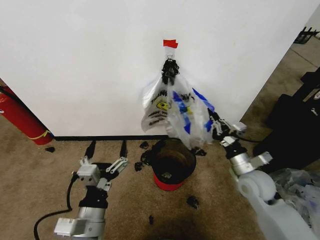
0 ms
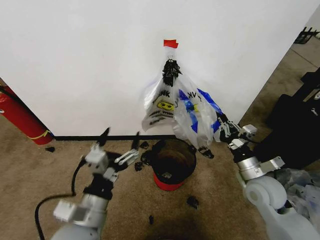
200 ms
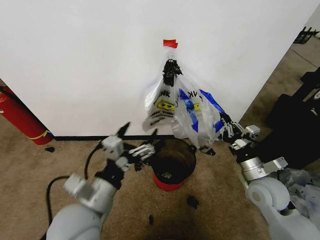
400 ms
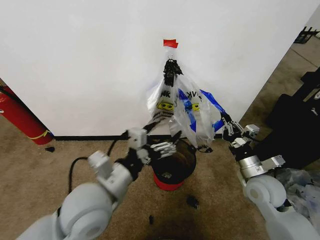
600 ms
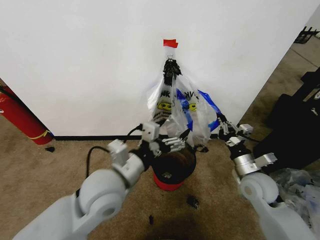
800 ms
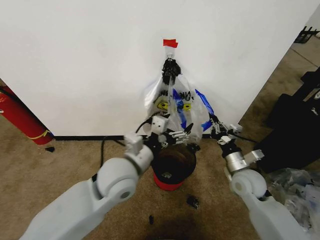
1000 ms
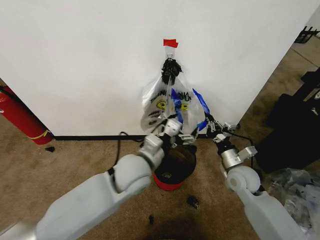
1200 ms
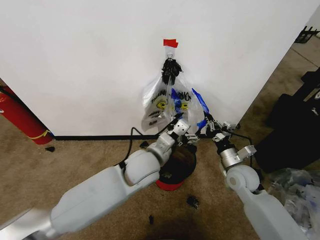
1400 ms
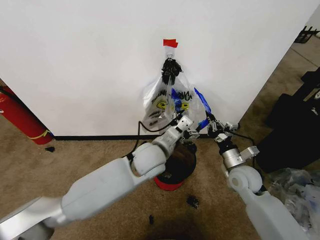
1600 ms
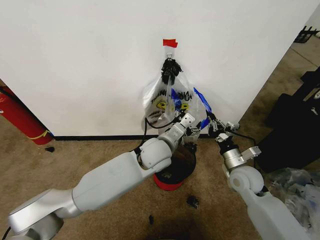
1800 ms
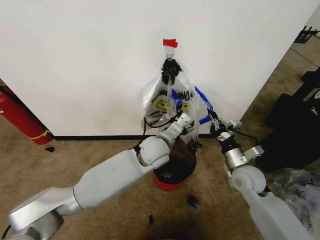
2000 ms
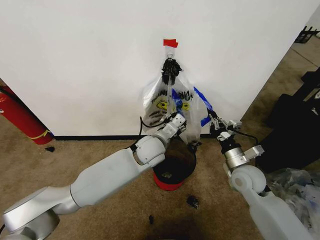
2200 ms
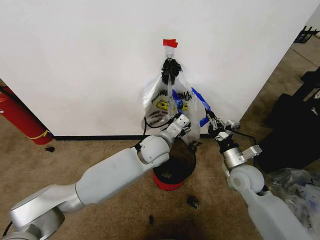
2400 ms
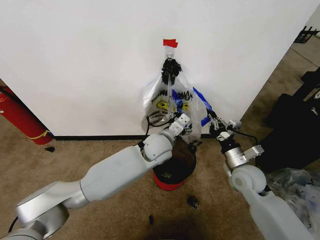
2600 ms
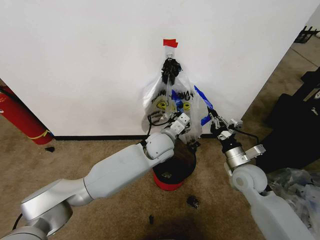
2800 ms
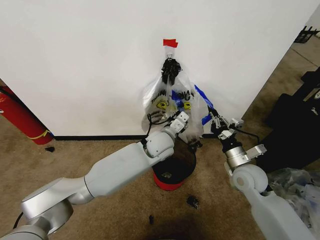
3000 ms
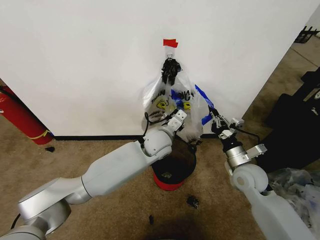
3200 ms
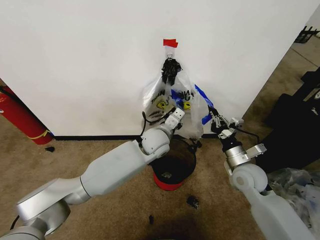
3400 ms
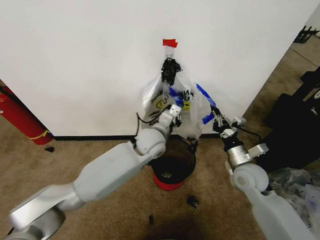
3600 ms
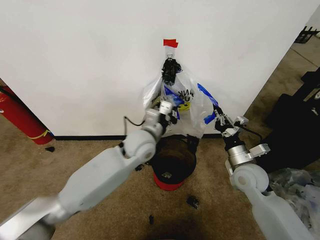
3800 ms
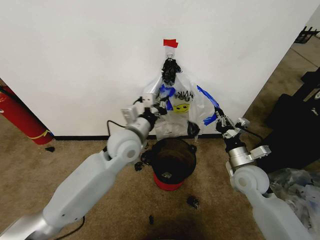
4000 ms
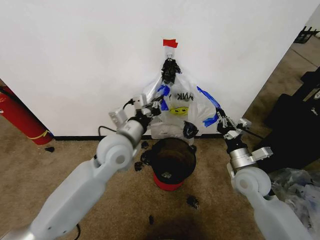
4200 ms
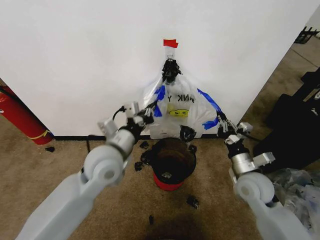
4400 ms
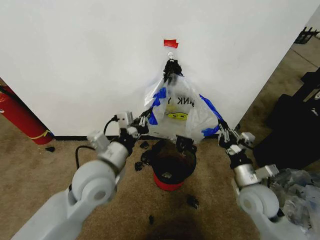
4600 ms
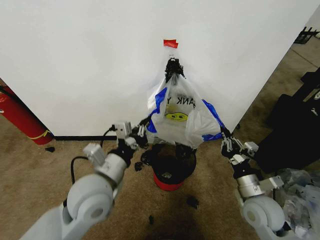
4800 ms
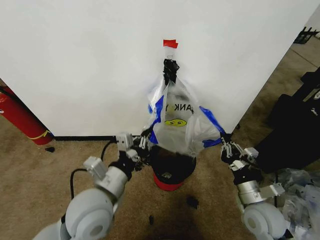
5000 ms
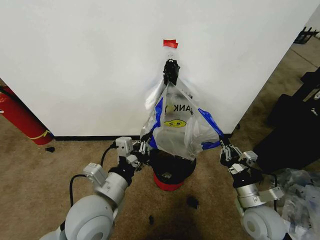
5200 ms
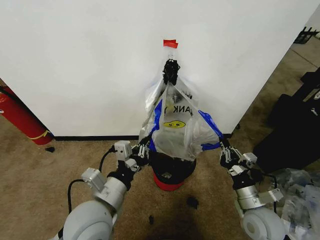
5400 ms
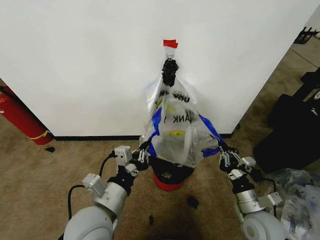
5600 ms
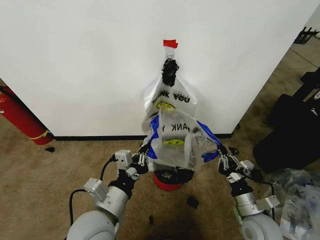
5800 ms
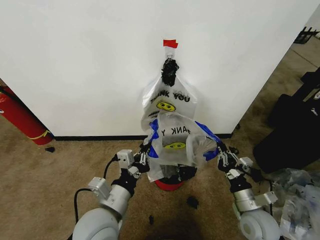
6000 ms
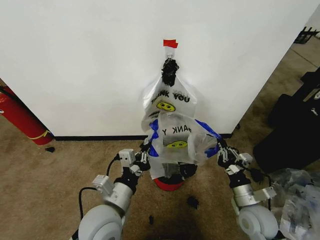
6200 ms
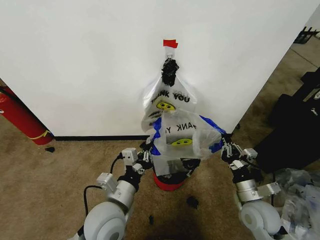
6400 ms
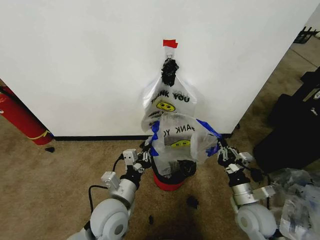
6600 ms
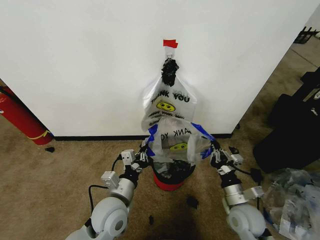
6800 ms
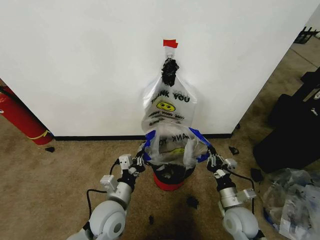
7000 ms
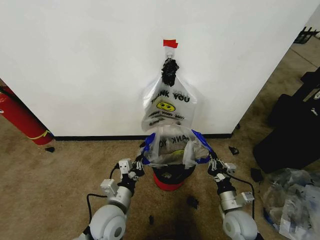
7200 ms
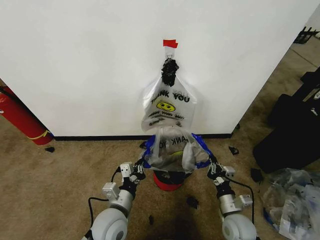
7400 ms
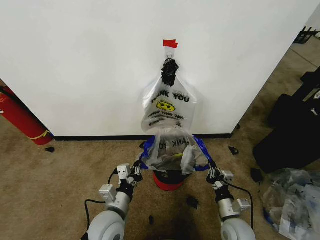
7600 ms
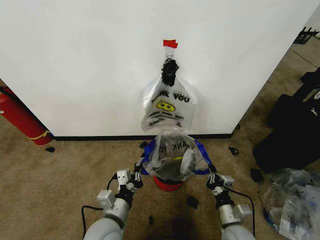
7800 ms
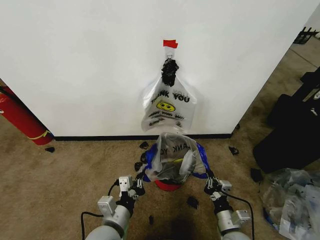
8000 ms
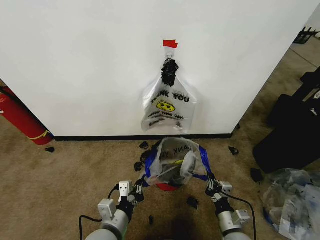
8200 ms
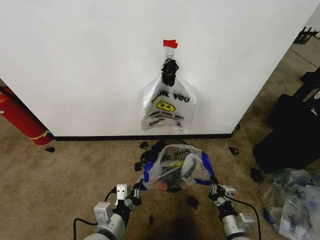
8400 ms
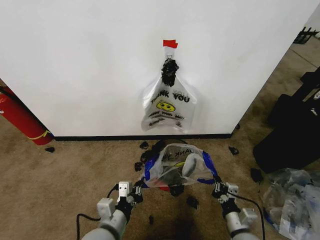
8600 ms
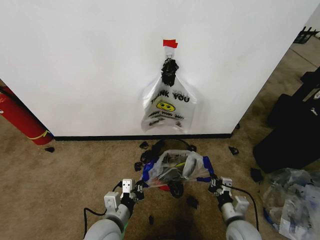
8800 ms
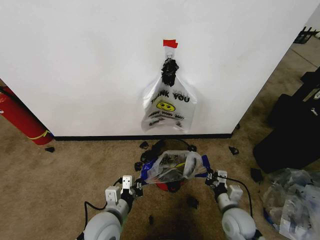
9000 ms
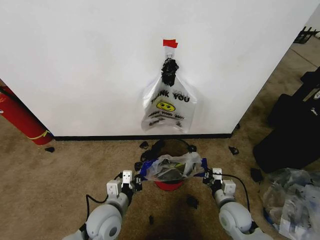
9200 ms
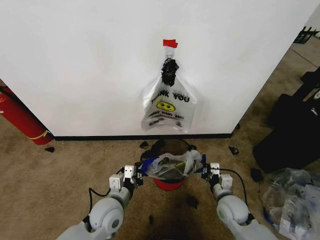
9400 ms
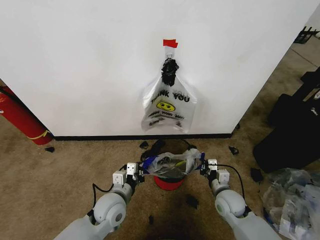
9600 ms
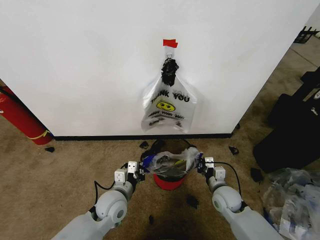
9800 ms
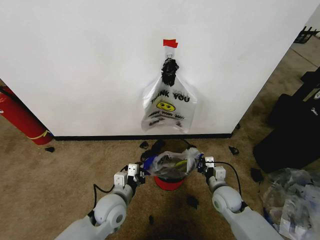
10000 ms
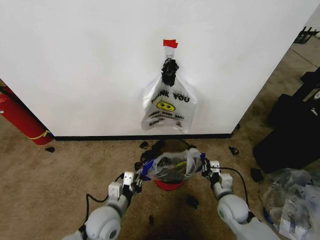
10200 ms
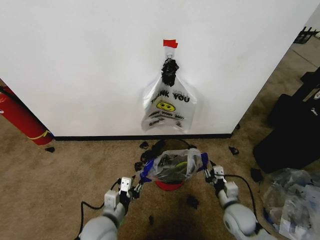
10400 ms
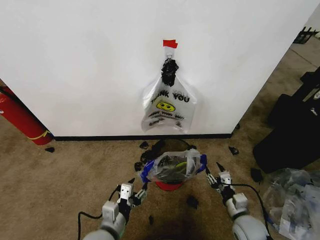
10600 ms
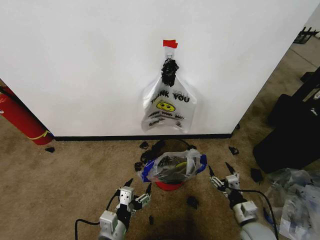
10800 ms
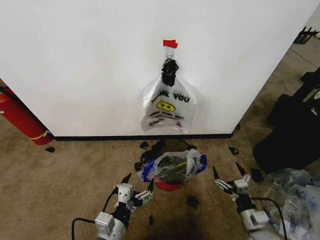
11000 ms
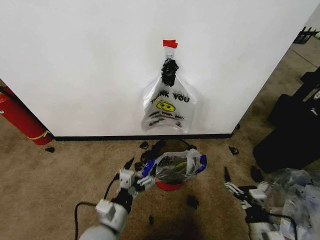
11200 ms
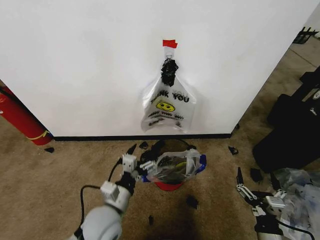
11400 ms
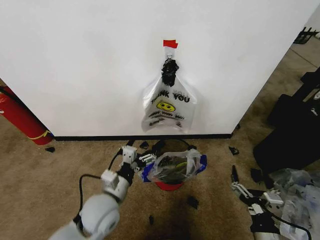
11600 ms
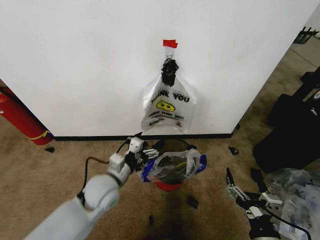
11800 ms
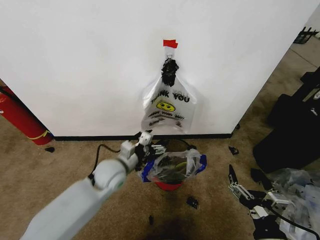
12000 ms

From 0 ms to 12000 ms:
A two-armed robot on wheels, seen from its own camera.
Task of the whole recording: Pick up the garbage bag from the wall and place it over the trash bin.
From 0 ms to 1600 ms: The left gripper shifts some 25 cm forward and to the right.
From 1600 ms to 3000 ms: The left gripper is displaced forward by about 10 cm, and closes.
From 3000 ms to 4400 ms: The left gripper goes approximately 20 cm to the left, backward and upward, and closes up.
From 4400 ms to 6000 ms: The two grippers go approximately 15 cm backward and downward.
From 6000 ms to 7600 ms: Both grippers travel together downward, approximately 10 cm.
From 9000 ms to 10400 ms: The left gripper moves approximately 5 cm forward and comes back, and opens; the right gripper goes forward and returns, approximately 10 cm each way, and opens its fingers.
From 10400 ms to 12000 ms: The left gripper travels forward and upward by some 15 cm, and opens up; the right gripper heads backward and upward, covering about 20 cm, and opens up.

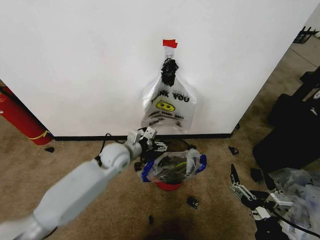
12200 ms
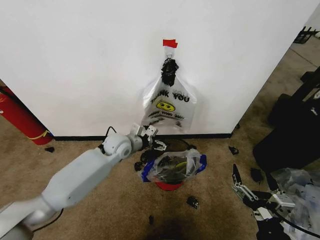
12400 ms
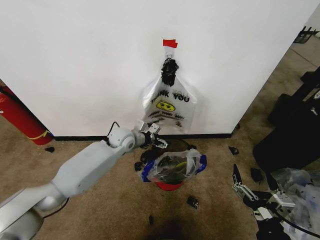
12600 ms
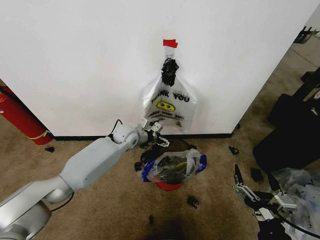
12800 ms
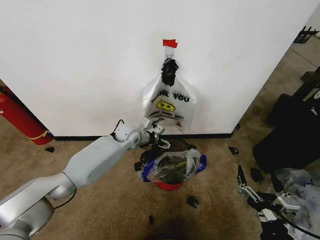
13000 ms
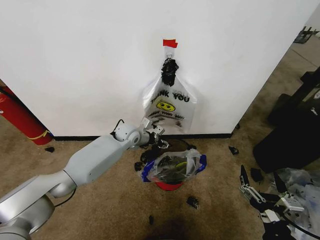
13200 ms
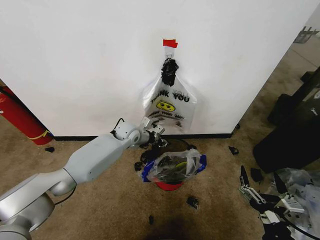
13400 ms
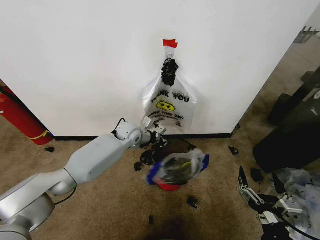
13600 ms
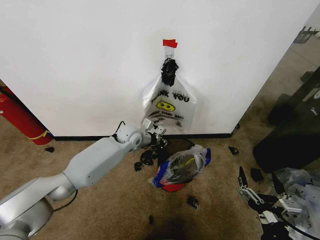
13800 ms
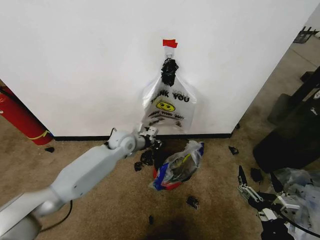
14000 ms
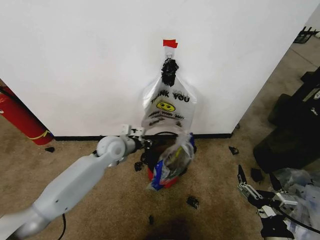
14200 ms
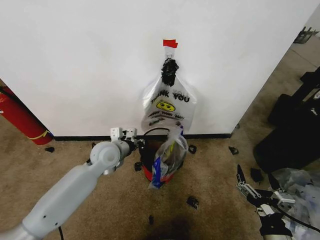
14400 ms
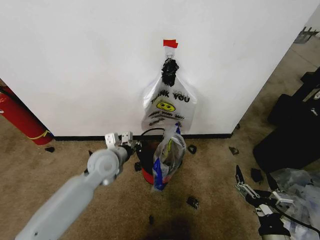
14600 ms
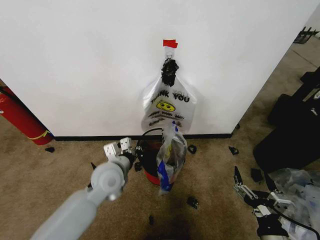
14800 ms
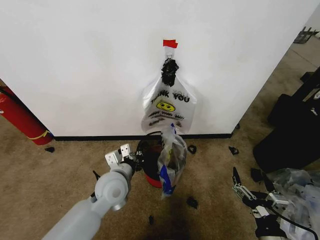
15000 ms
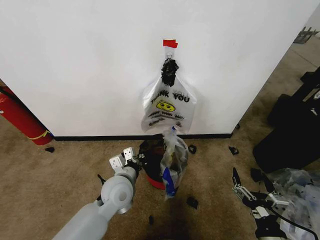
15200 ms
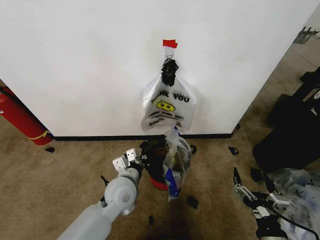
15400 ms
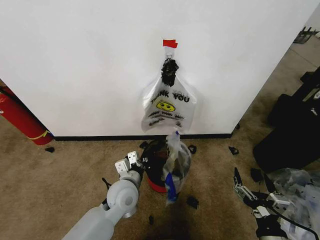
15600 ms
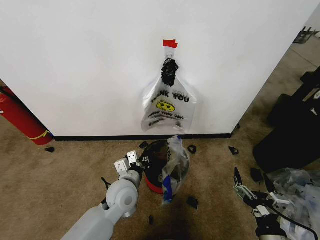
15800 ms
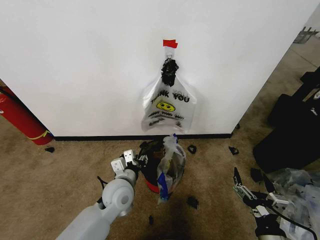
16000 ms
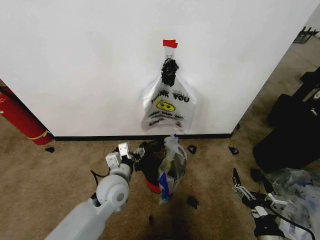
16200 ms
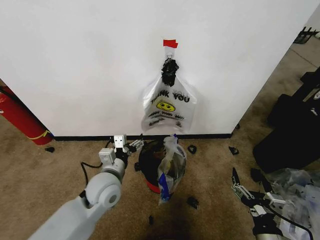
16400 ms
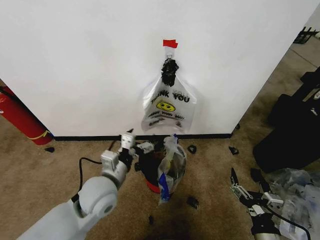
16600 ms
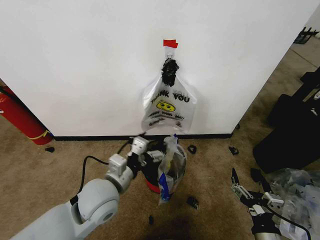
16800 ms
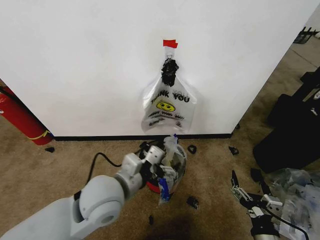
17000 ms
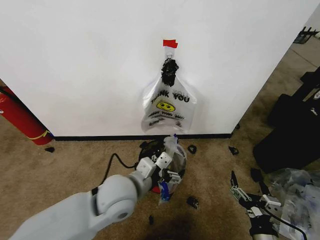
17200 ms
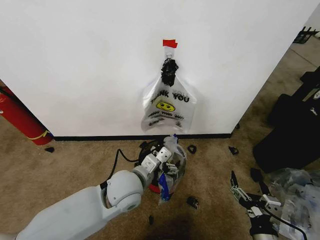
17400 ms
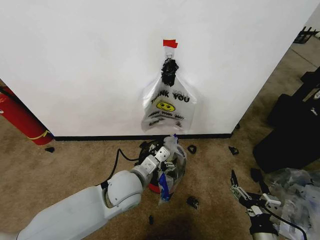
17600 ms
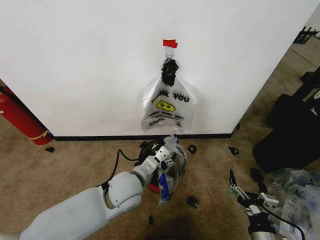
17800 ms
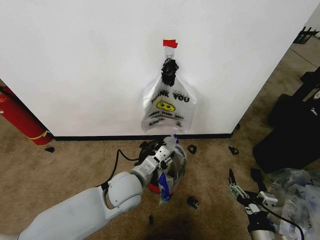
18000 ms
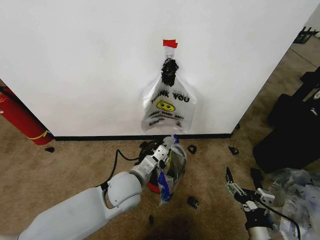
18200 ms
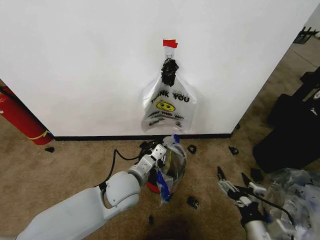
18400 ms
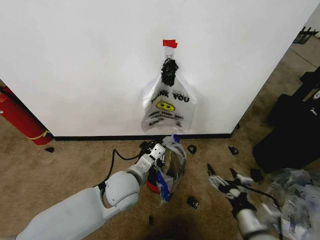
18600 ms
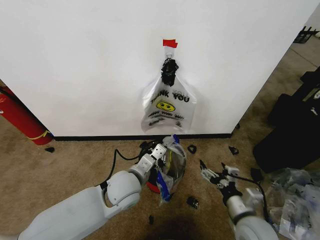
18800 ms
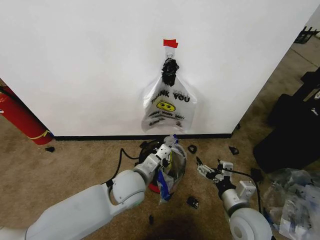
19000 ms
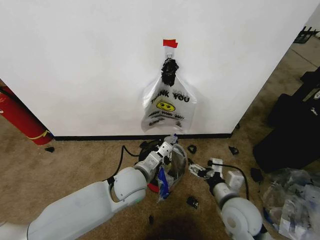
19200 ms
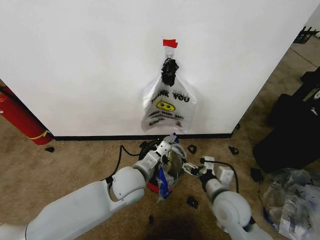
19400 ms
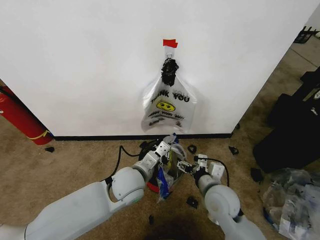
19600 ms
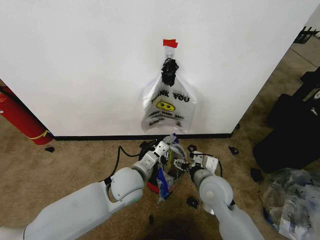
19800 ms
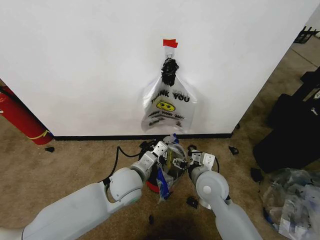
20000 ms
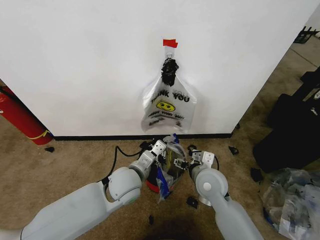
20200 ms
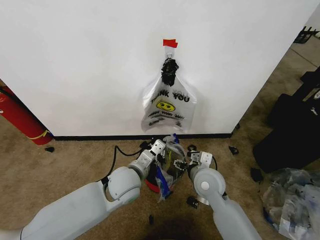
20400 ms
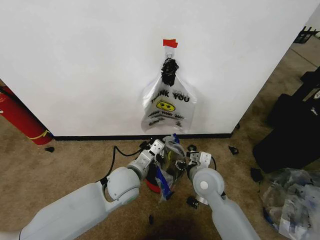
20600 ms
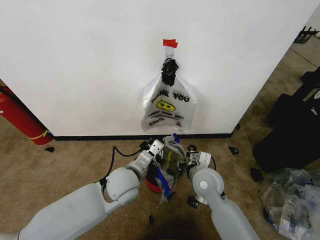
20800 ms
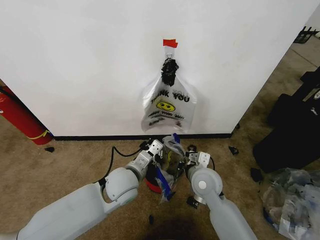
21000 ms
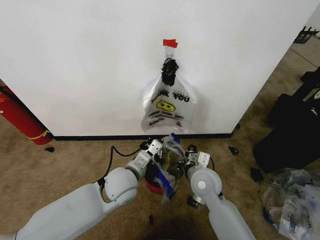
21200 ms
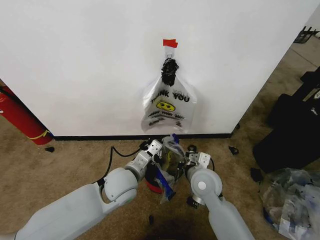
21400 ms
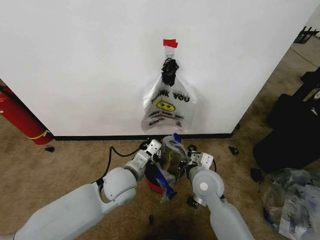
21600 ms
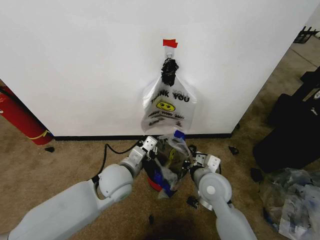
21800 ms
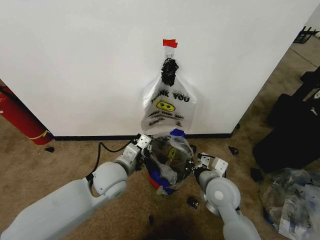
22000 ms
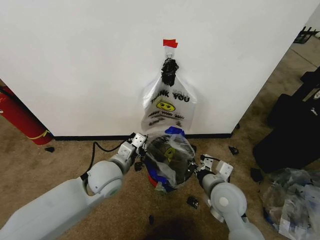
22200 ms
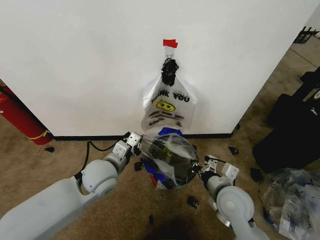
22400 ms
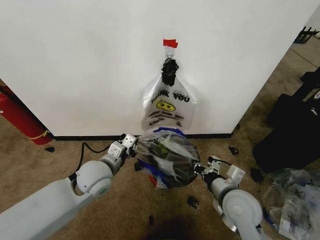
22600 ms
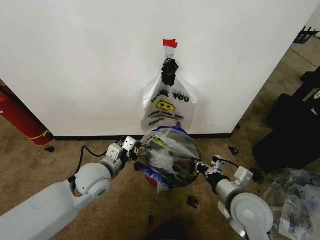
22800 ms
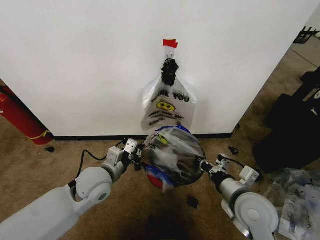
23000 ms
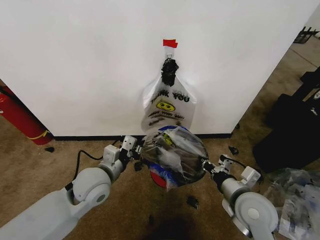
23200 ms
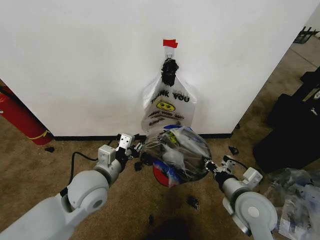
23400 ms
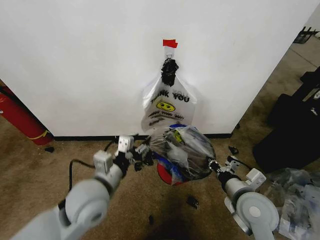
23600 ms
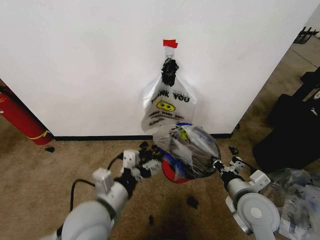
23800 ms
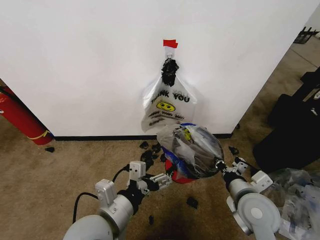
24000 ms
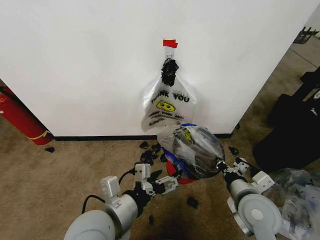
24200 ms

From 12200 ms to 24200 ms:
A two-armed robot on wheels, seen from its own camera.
Task of the whole recording: Pick up the garbage bag from the wall and place it over the trash bin.
From 12200 ms to 13800 ms: The left gripper goes about 10 cm forward, and closes up.
From 13800 ms to 15200 ms: The left gripper shifts about 20 cm backward.
From 15200 ms to 16600 ms: The left gripper changes place by roughly 5 cm, and opens its fingers.
From 16600 ms to 18200 ms: The left gripper is displaced to the right by roughly 5 cm, travels upward and back again, some 5 cm each way, and closes.
From 18200 ms to 19800 ms: The right gripper heads forward and to the left, covering about 20 cm.
From 19800 ms to 21200 ms: The right gripper closes its fingers.
From 21200 ms to 22600 ms: The left gripper goes approximately 10 cm to the left. The right gripper heads backward and to the right, covering approximately 10 cm.
From 22600 ms to 24200 ms: The left gripper shifts approximately 15 cm backward, and opens.
